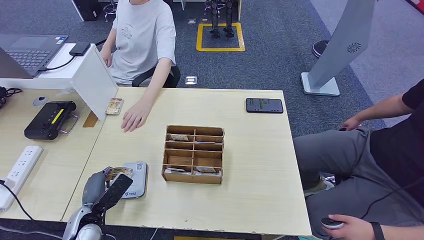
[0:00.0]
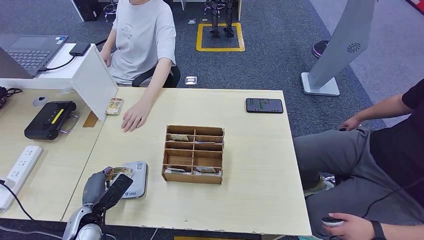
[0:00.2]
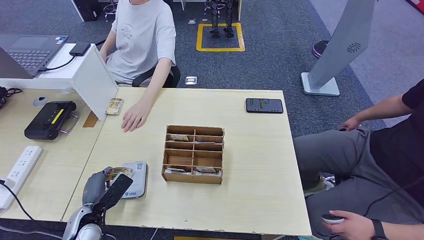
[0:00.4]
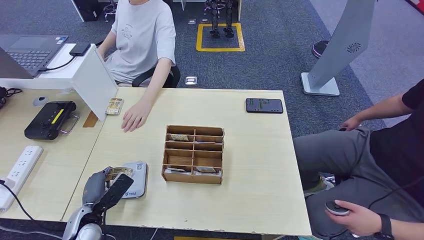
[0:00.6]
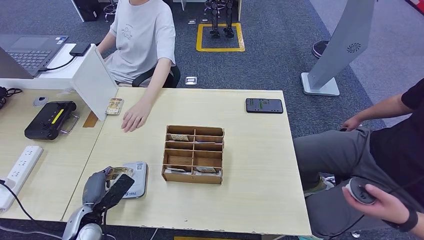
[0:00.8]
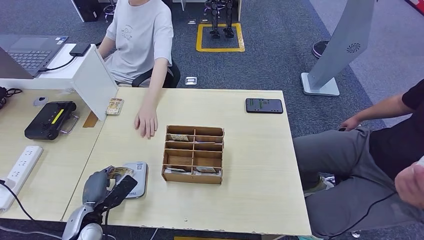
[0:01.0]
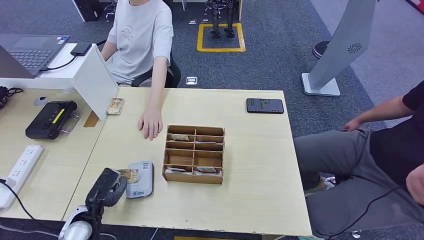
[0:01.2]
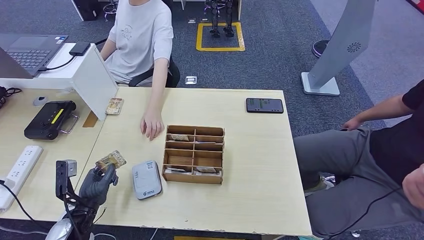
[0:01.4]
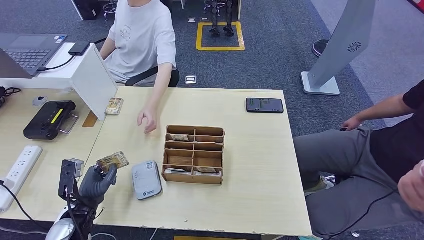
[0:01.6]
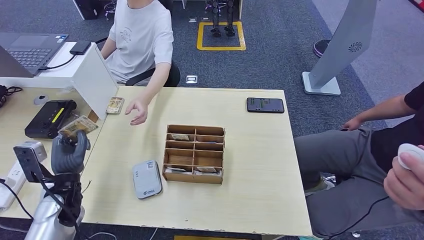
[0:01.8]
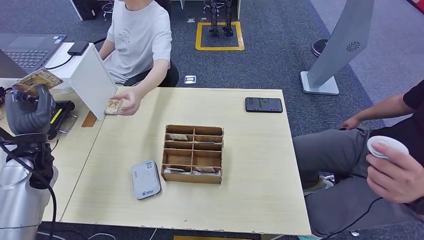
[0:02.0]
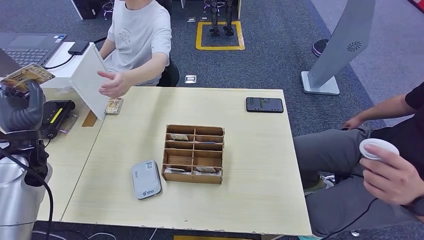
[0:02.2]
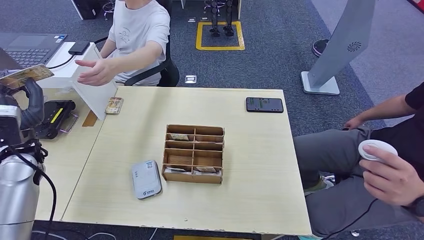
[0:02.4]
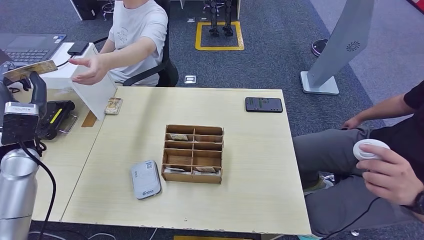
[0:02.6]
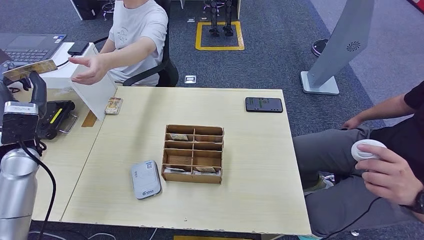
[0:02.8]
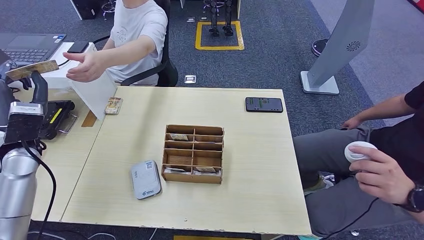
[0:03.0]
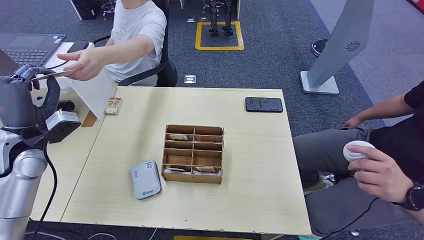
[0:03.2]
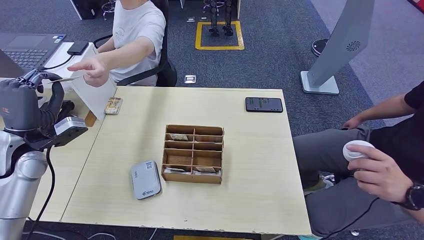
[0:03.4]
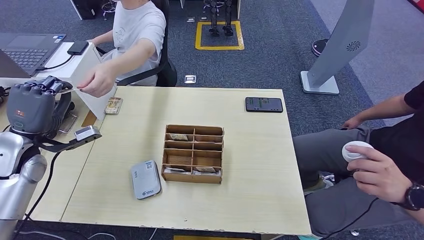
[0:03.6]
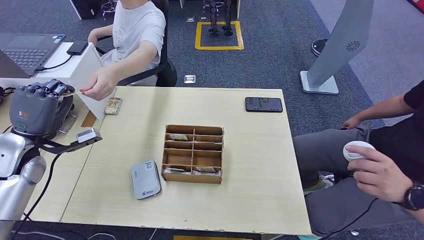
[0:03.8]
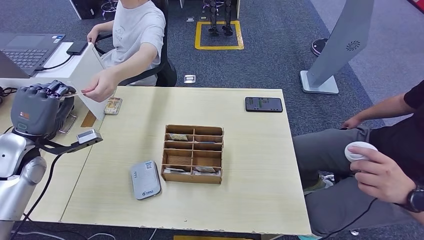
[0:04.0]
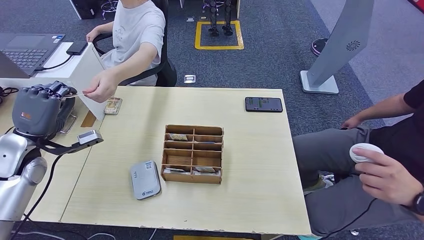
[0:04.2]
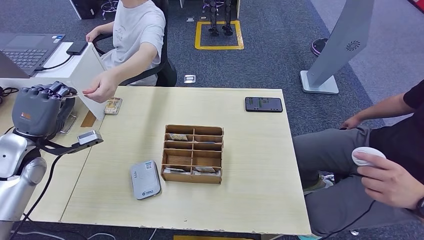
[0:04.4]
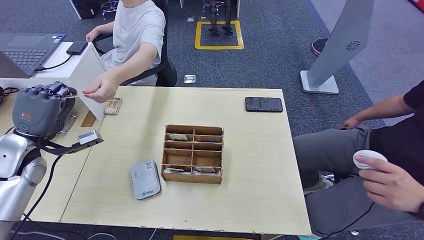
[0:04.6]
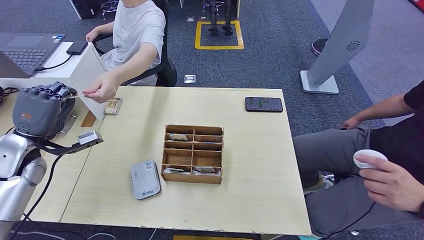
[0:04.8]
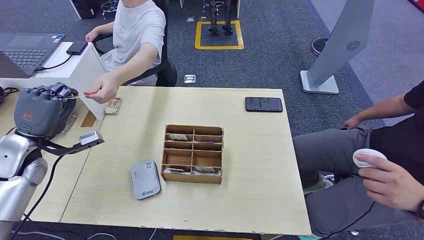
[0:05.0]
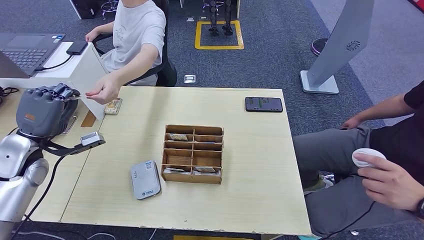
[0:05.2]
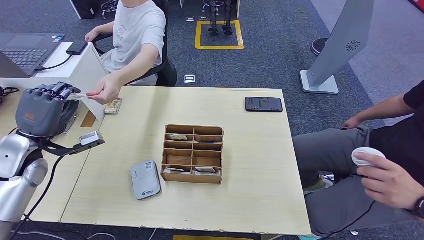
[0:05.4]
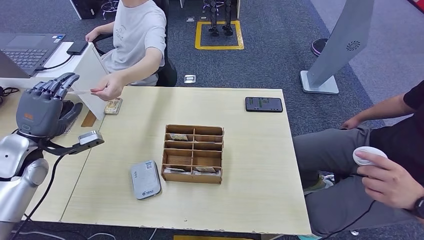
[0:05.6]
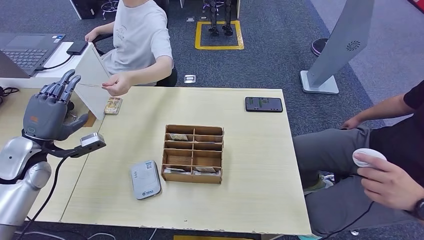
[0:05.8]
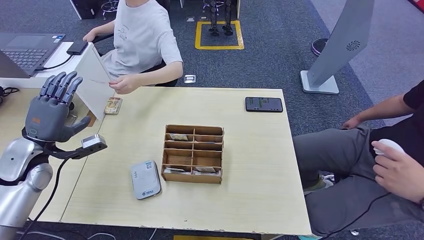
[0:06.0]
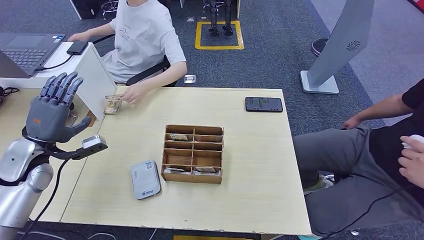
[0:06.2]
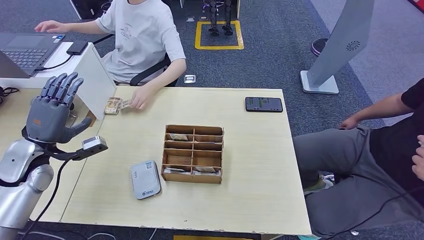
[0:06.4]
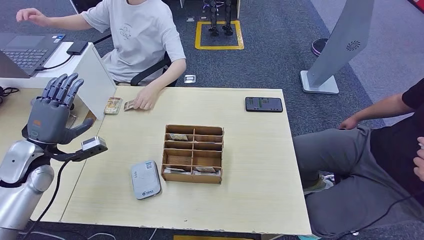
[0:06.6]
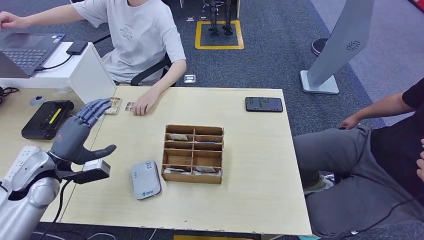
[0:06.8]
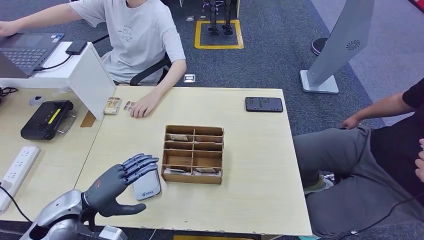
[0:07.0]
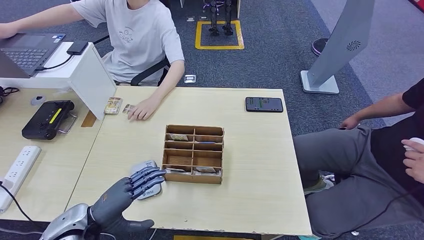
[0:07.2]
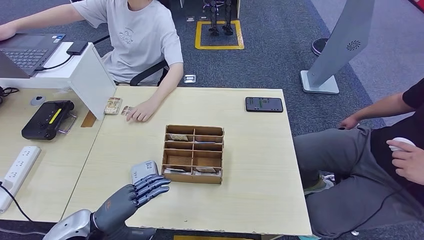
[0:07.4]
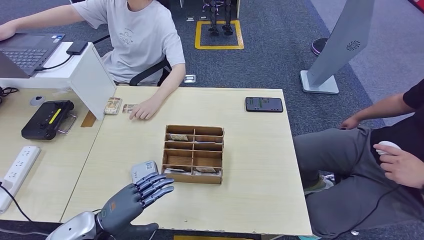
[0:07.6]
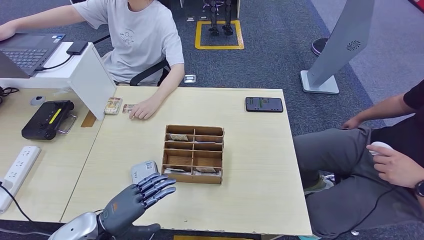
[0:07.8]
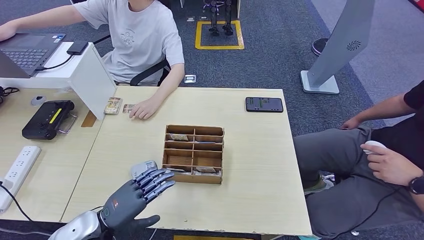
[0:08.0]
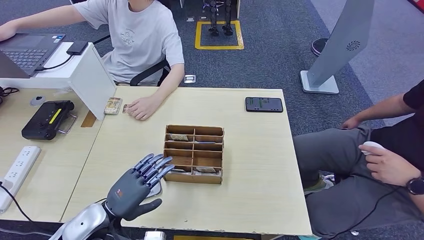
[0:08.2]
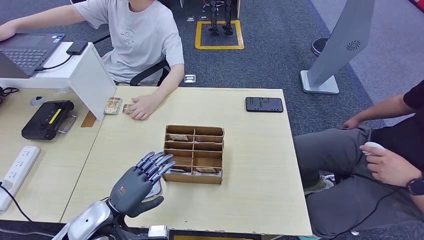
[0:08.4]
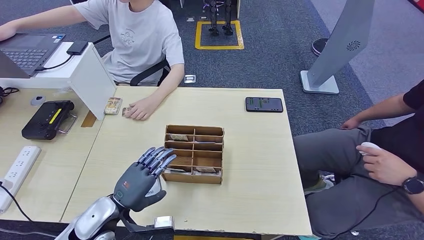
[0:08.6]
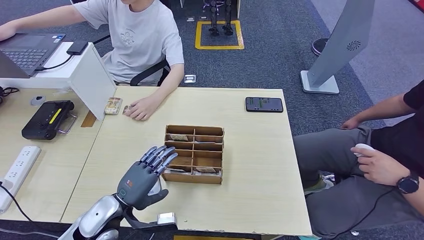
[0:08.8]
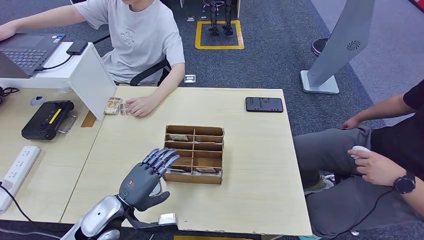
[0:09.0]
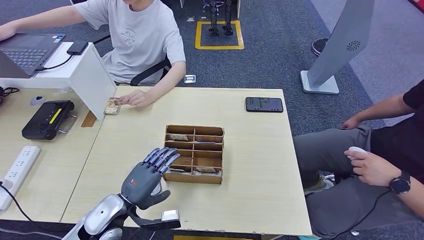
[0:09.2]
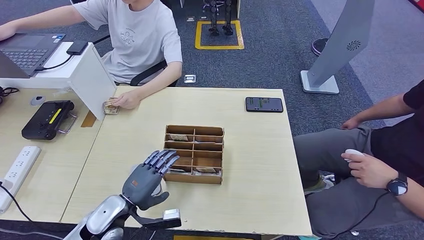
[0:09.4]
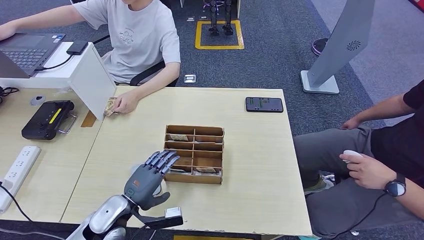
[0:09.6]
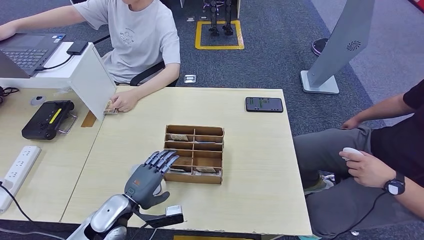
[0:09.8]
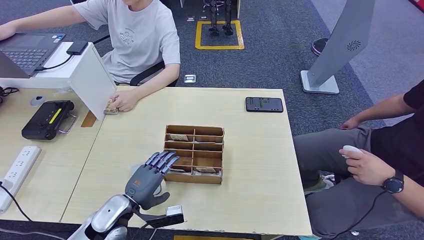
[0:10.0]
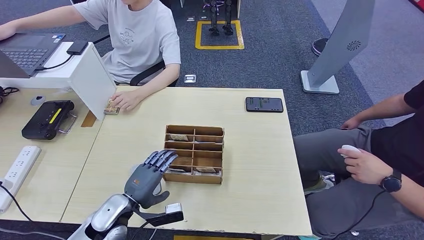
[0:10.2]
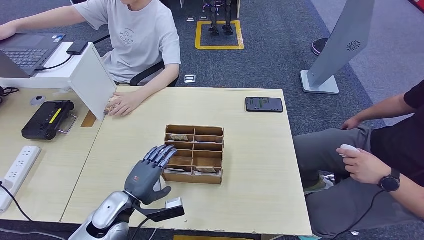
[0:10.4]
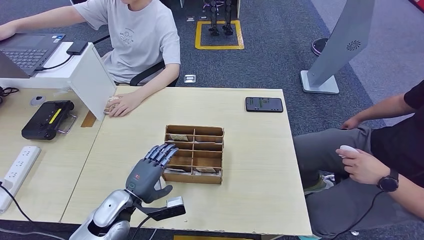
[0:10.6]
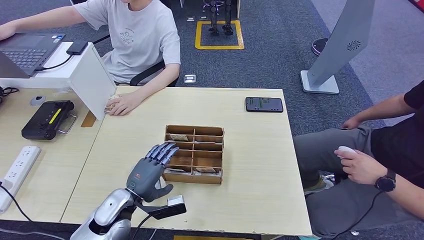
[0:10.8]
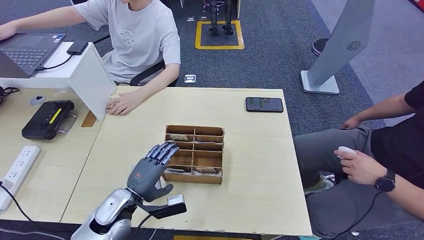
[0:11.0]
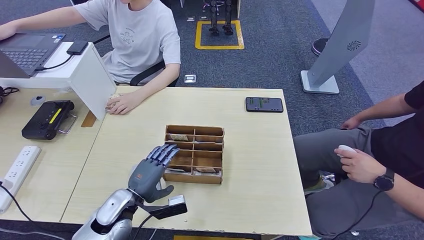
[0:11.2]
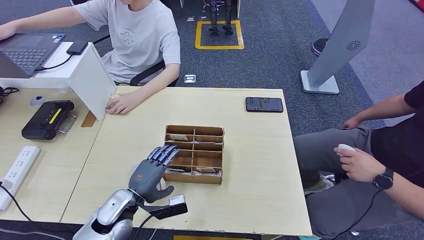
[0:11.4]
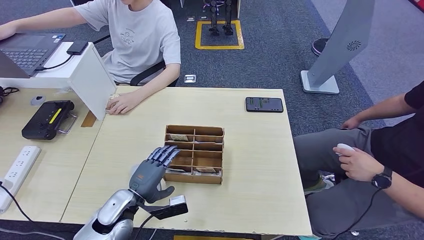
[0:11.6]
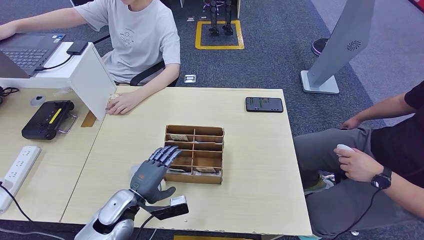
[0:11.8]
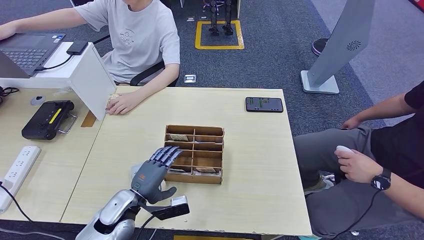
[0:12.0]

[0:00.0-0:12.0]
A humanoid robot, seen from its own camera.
Step, 0:01.4 to 0:06.0: Hand the ID card to the person.
0:01.6 to 0:03.0: The left hand travels upward and forward by about 20 cm.
0:04.4 to 0:06.0: The hands move only a little.
0:06.0 to 0:07.6: The left hand heads backward, to the right and downward, covering approximately 20 cm.
0:07.6 to 0:09.0: The left hand ends up about 5 cm from where it was.
0:09.0 to 0:12.0: The hands stay close to where they were, moving slightly.

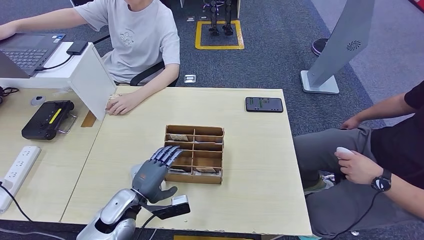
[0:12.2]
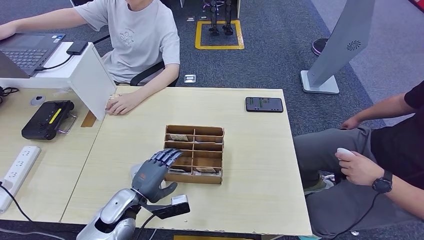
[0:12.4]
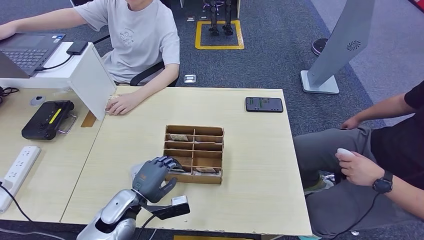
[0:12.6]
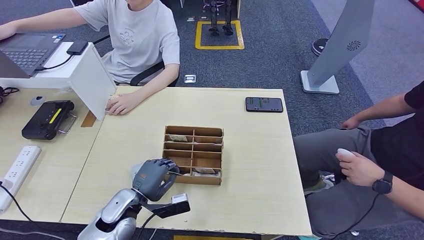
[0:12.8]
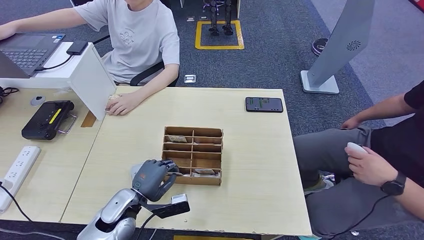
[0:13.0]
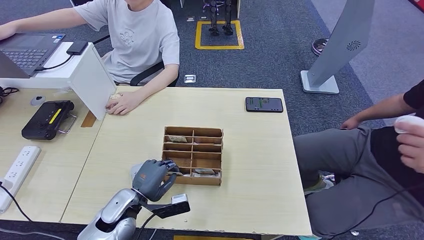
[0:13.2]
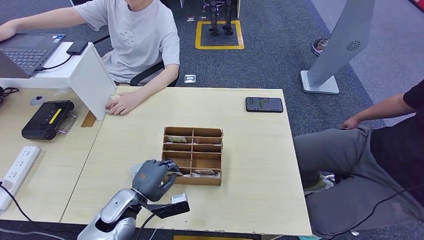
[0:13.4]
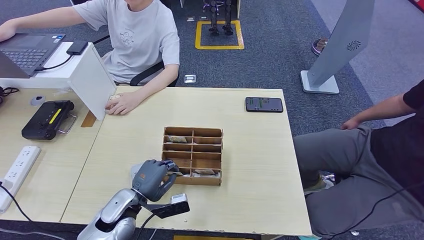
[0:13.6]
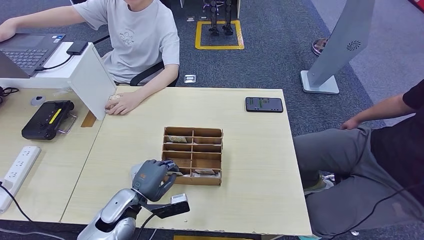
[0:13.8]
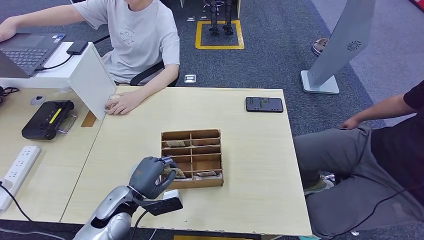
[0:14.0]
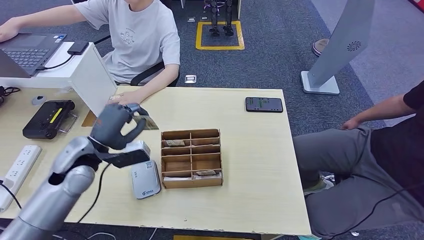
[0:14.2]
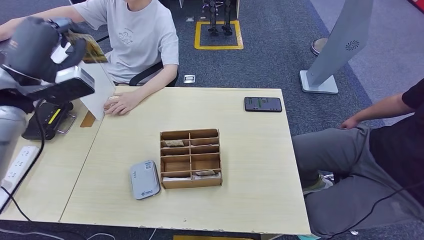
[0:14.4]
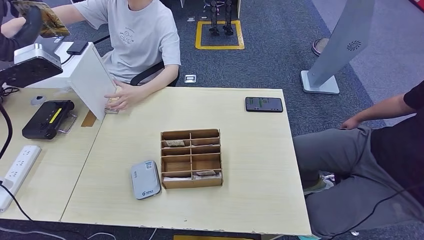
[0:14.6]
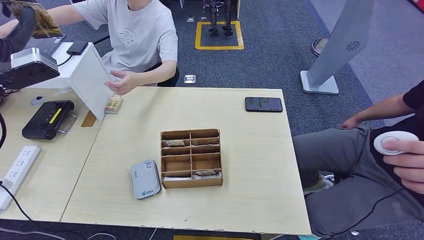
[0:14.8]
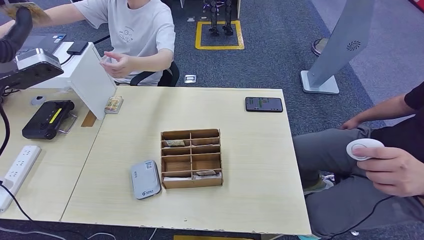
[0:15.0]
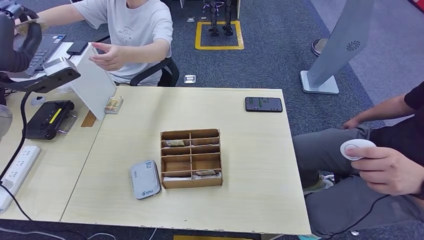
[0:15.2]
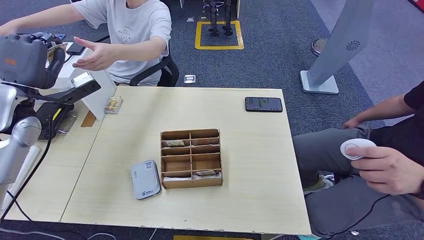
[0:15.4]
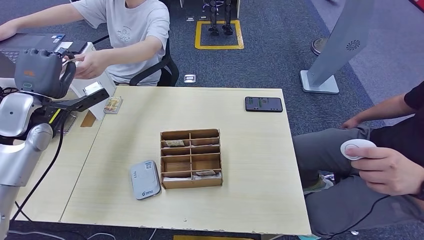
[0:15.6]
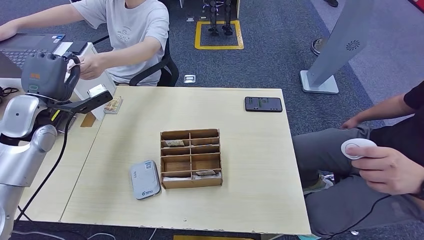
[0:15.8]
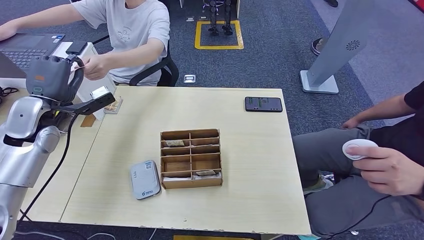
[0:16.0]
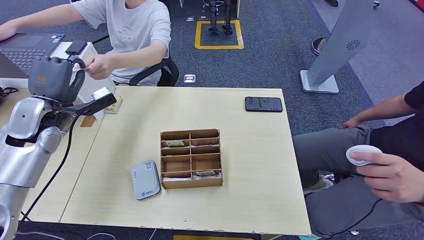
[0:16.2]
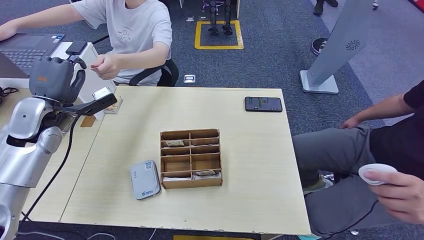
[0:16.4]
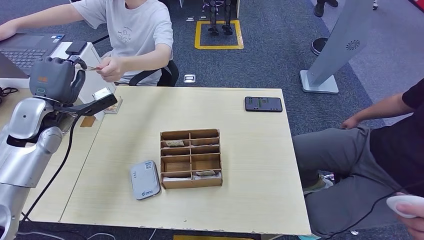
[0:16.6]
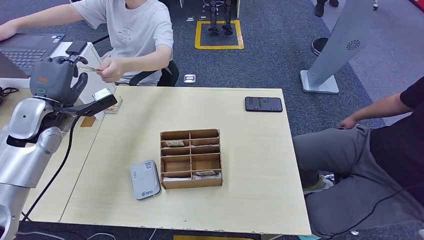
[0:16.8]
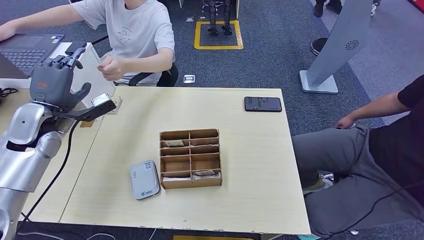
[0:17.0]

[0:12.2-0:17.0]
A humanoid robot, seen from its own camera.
Step, 0:14.2 to 0:17.0: Hand the room key to the person.
0:12.2 to 0:13.8: Both hands stay about where they are.
0:15.4 to 0:17.0: The left hand heads downward, covering some 5 cm.
